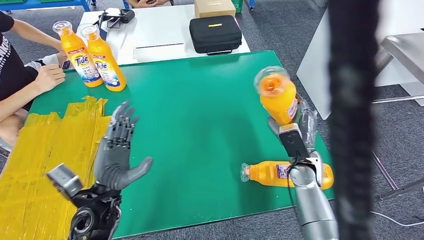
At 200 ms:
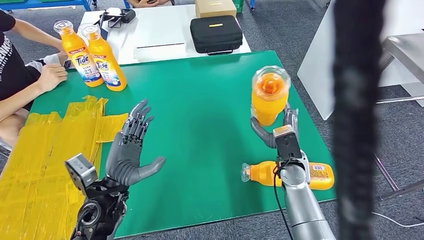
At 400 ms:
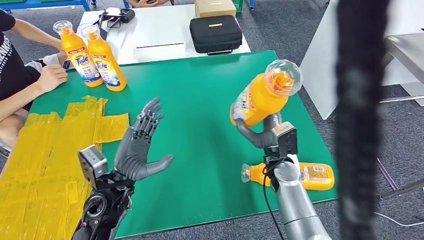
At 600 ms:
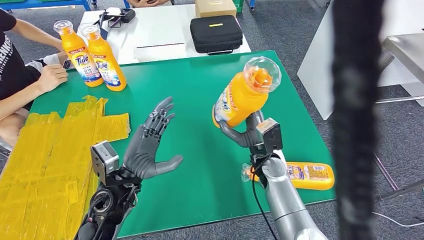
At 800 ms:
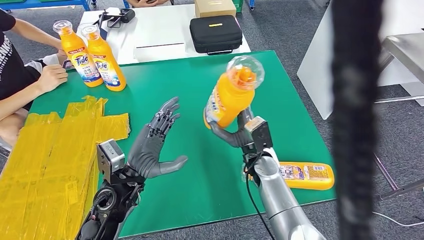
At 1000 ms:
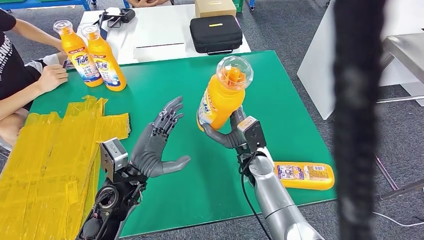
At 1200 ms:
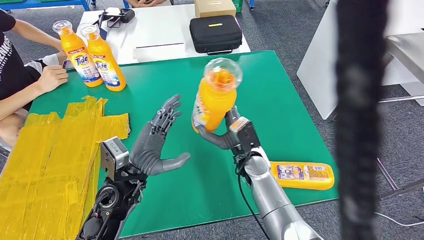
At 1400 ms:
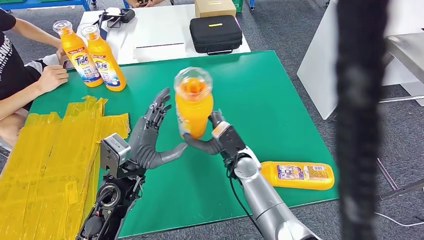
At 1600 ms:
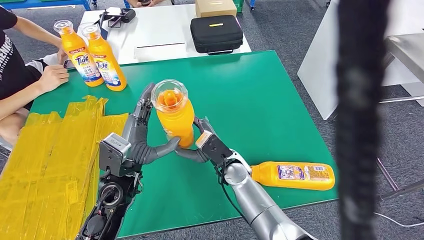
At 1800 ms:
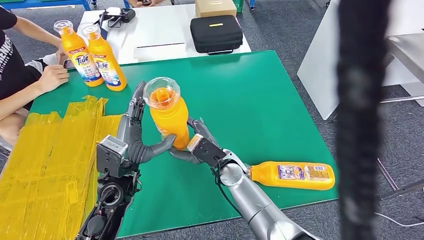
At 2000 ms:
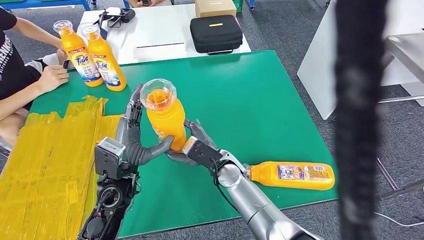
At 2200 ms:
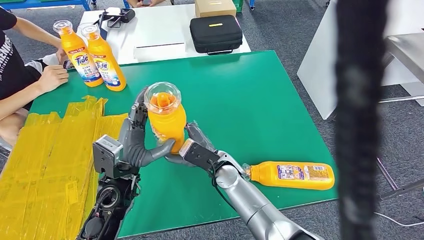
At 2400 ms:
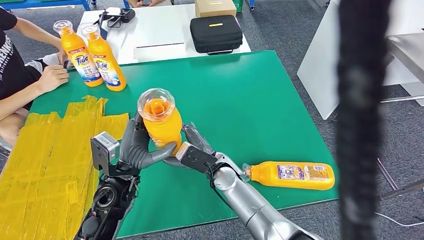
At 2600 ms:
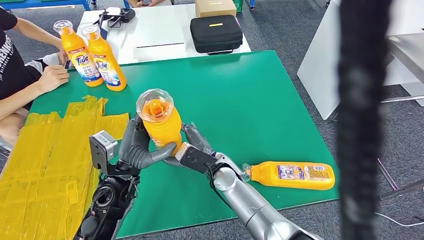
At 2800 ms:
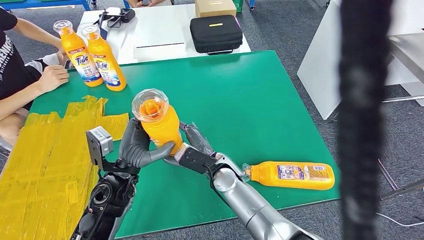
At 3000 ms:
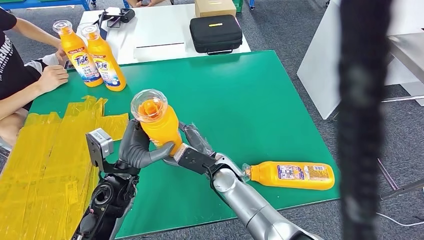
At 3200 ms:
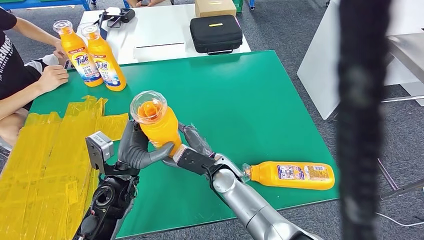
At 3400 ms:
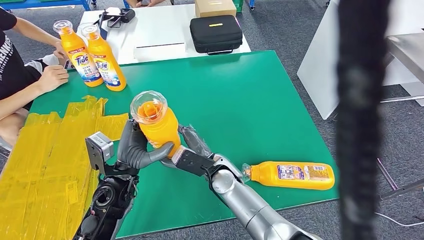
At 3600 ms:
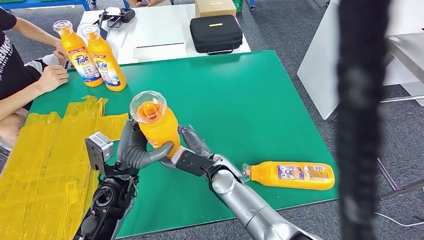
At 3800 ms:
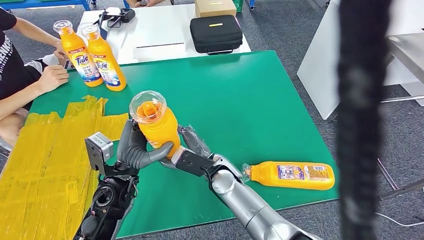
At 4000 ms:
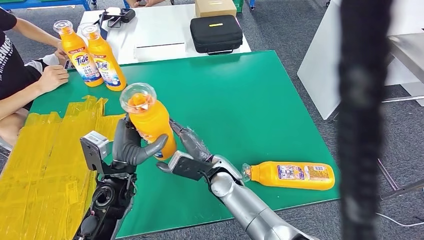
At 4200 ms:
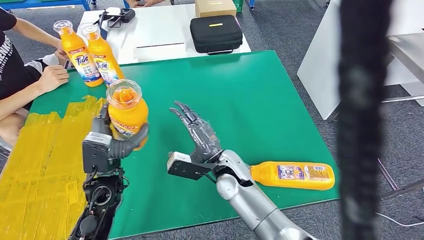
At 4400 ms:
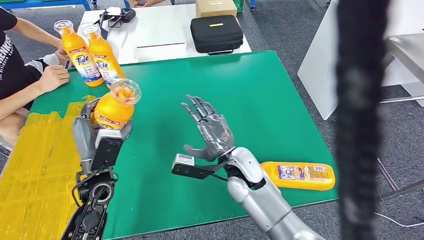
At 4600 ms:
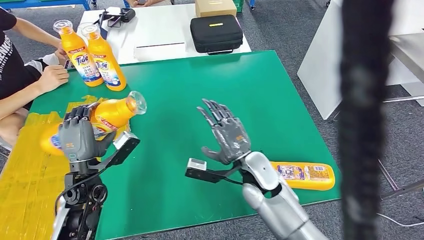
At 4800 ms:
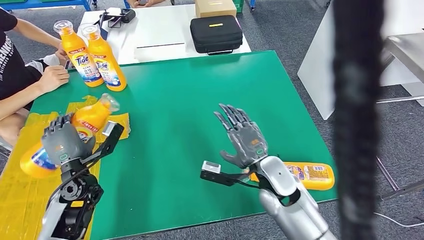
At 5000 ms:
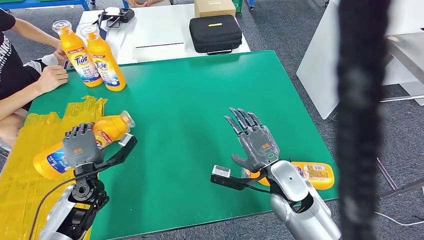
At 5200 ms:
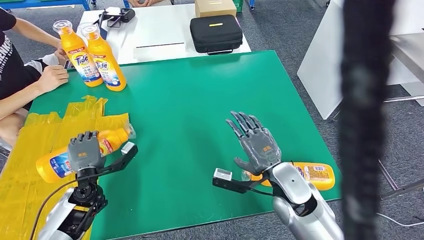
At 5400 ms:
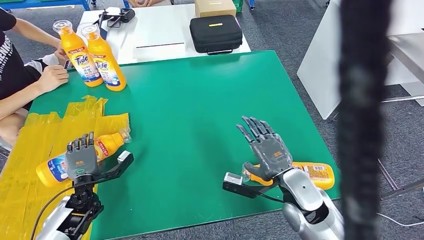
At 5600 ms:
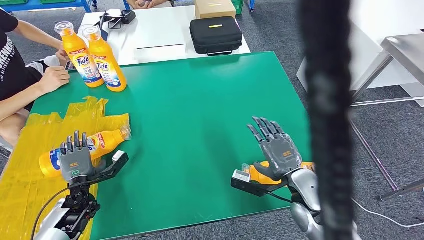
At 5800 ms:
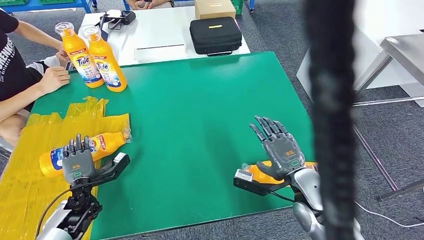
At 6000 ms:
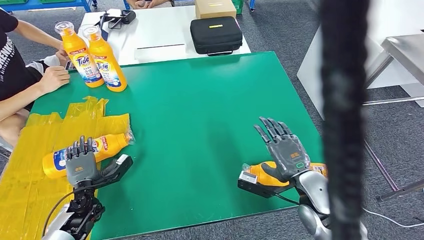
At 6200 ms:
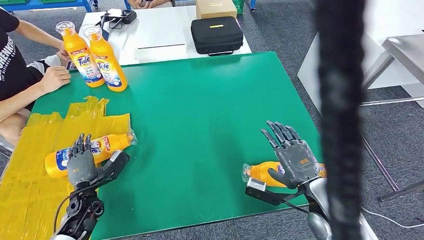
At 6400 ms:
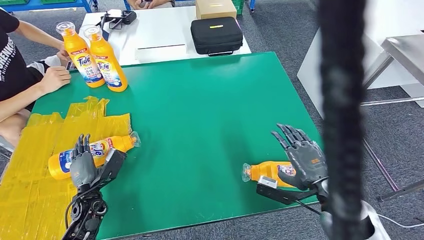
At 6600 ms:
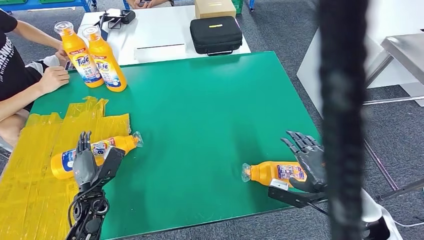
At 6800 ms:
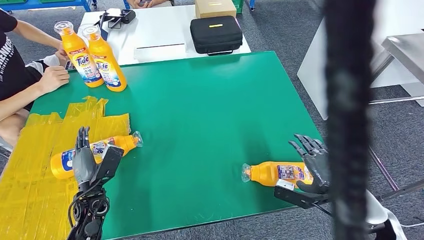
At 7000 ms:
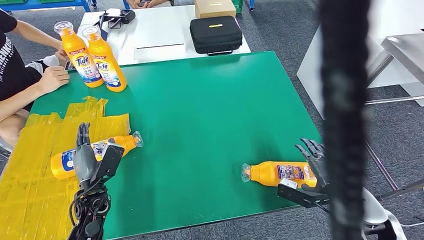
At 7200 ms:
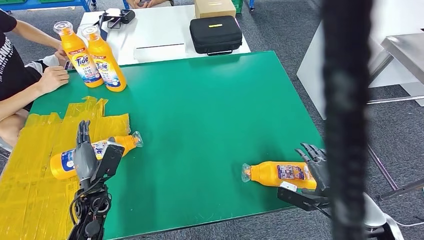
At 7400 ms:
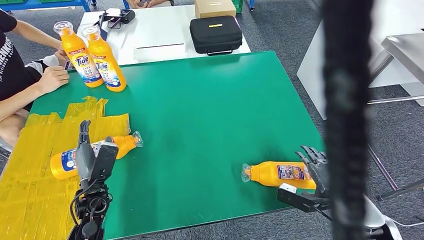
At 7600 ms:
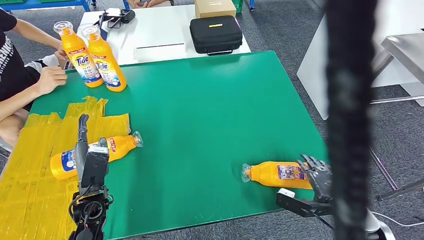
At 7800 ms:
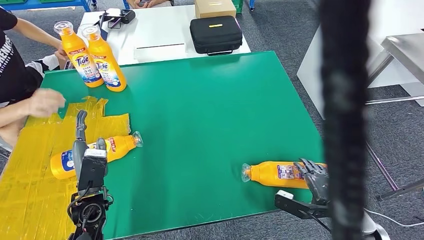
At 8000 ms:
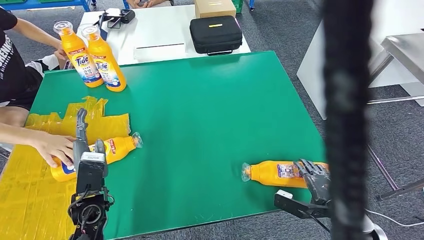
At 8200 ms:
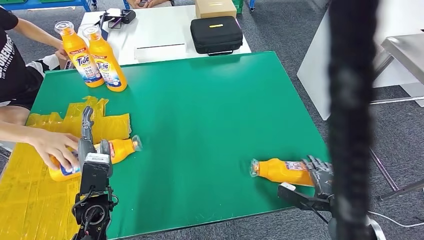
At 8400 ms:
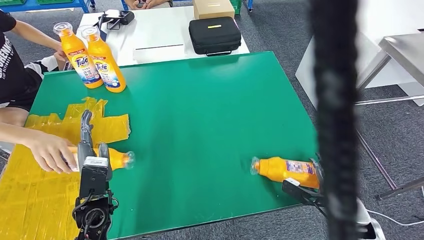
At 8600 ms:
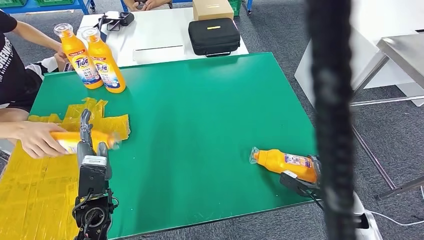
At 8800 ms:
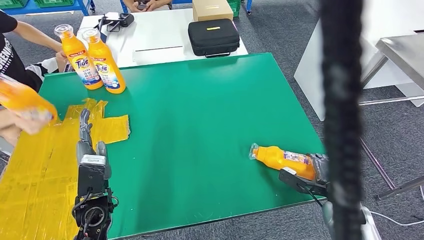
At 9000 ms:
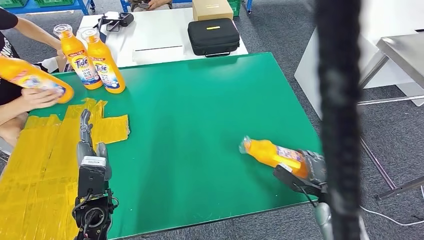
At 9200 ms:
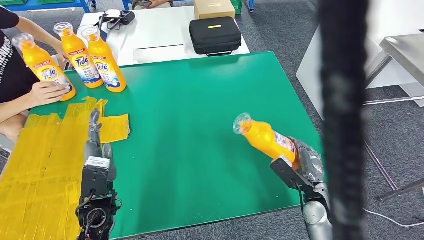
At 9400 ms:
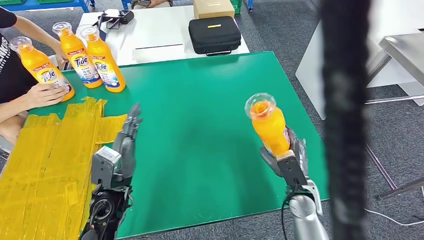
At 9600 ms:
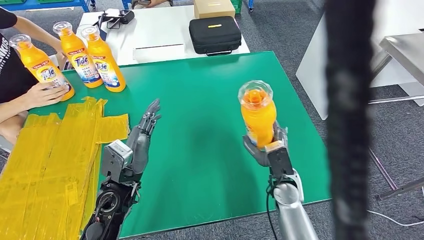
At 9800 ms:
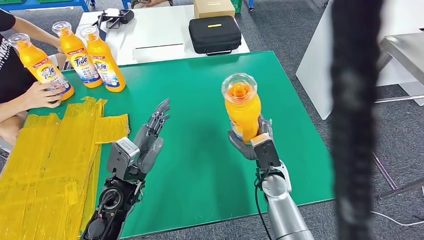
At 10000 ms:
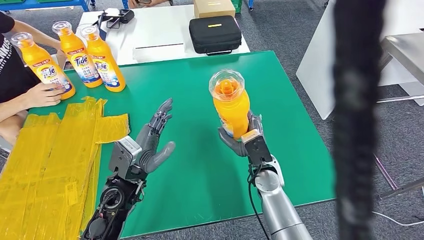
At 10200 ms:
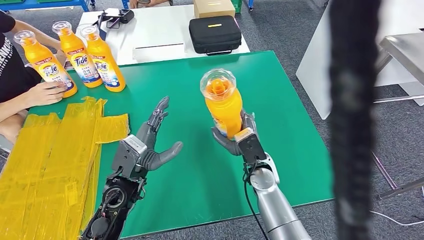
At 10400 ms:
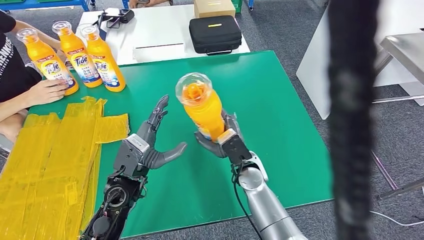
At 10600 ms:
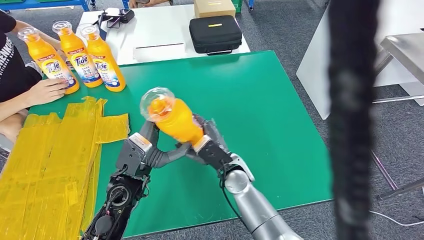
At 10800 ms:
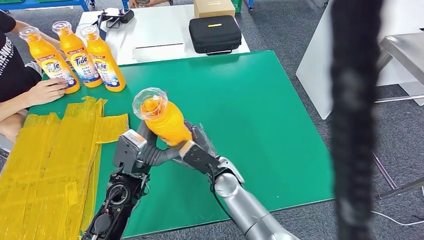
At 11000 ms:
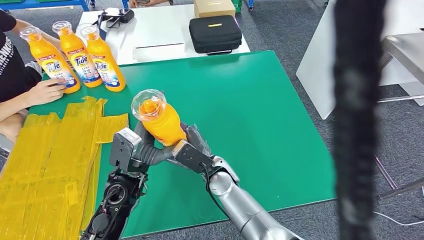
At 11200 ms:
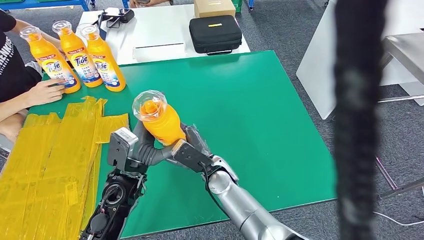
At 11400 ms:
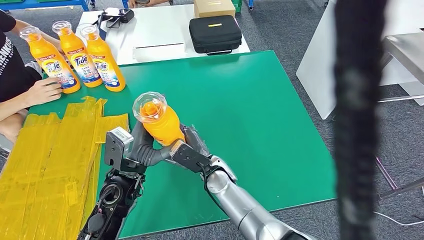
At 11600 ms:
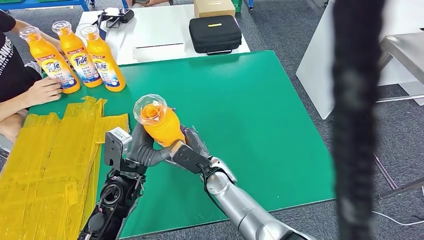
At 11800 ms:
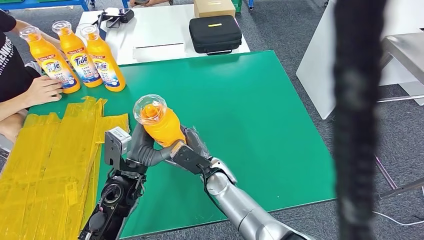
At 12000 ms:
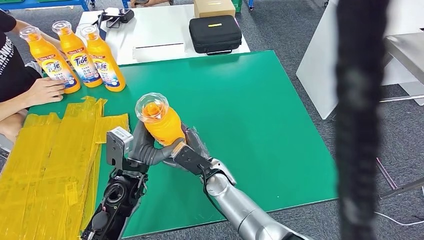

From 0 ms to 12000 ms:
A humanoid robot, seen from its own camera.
Step, from 1800 ms to 6600 ms: Flip the bottle to face forward.
Step, from 6800 ms to 10600 ms: Pick up the bottle from the table.
From 3000 ms to 4400 ms: The right hand changes place by some 5 cm. Meanwhile the left hand goes roughly 5 cm to the left.
From 6000 ms to 7600 ms: The left hand moves upward and to the right, approximately 10 cm. The right hand heads to the right, covering some 10 cm.

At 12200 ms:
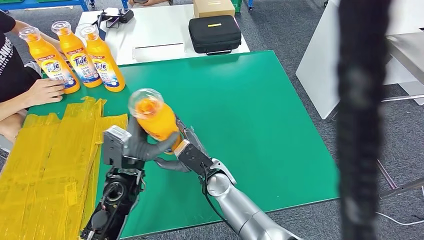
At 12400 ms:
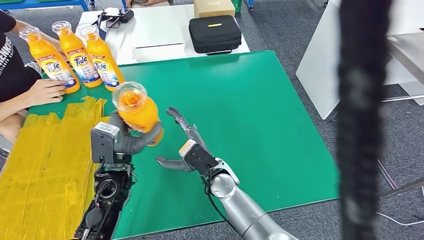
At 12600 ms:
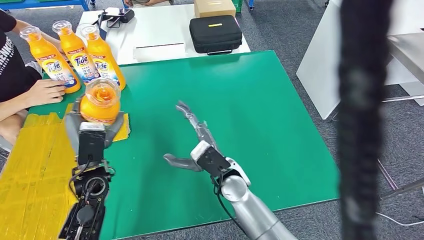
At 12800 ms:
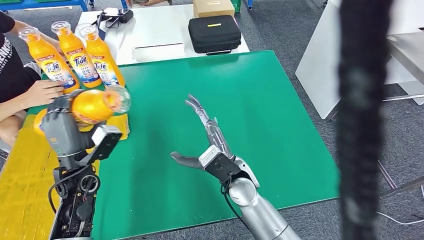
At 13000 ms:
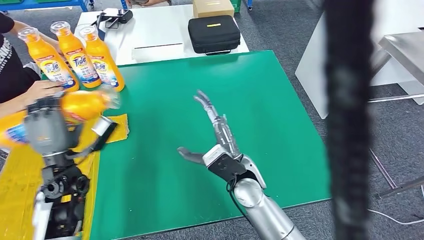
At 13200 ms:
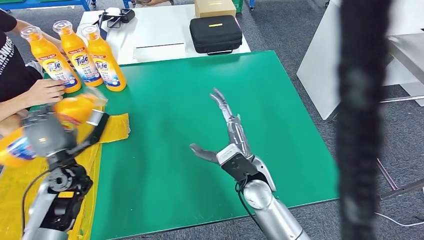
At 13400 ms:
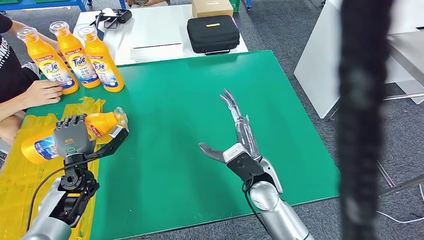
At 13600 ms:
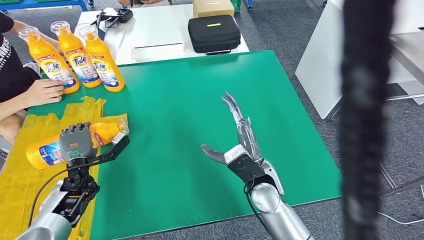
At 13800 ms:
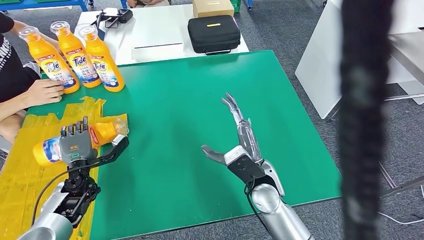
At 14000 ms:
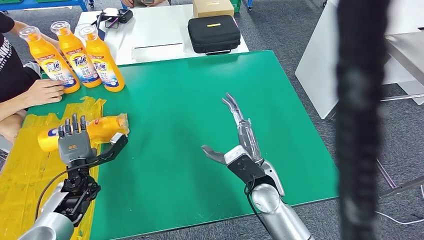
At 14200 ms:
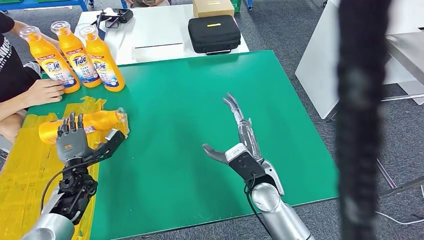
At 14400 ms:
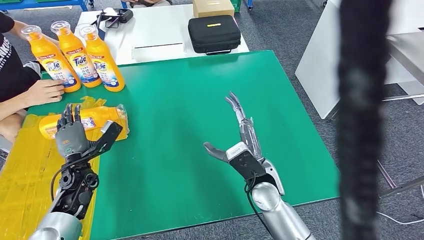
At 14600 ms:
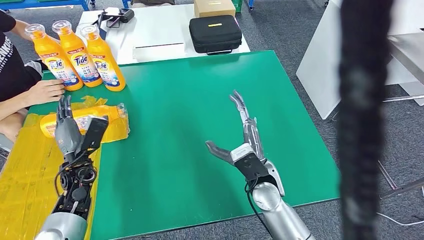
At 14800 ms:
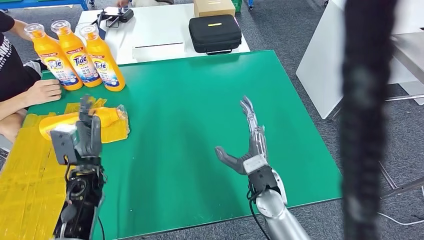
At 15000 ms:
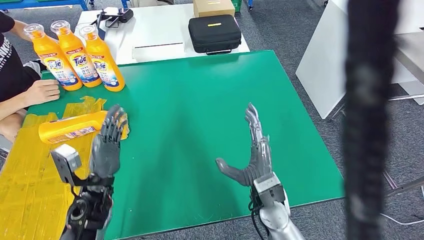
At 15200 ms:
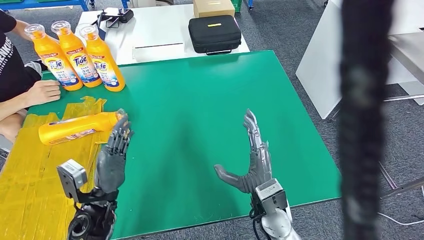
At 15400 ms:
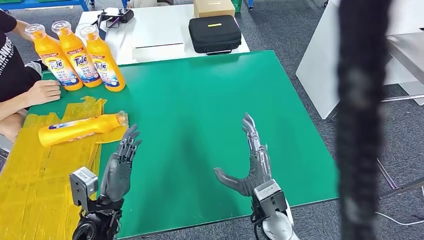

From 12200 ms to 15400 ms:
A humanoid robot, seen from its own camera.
Step, from 12200 ms to 15200 ms: Flip the bottle to face forward.
From 13800 ms to 15400 ms: The right hand shifts approximately 5 cm backward; the left hand travels backward, to the right and upward by approximately 20 cm.
